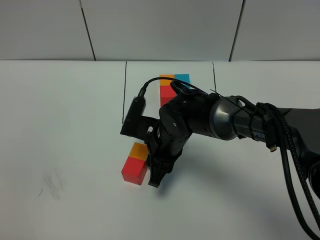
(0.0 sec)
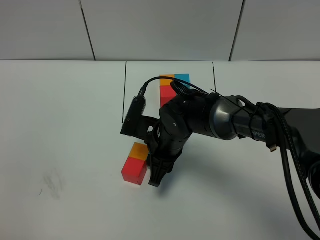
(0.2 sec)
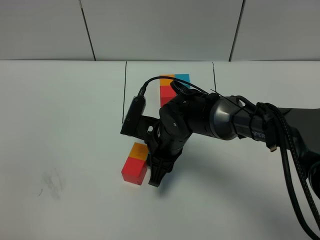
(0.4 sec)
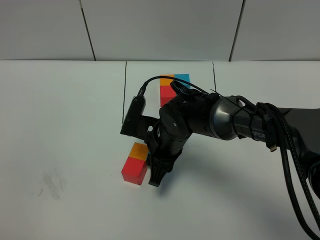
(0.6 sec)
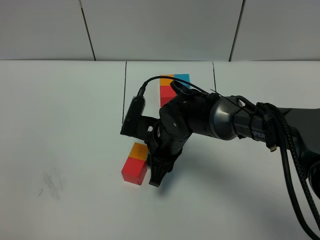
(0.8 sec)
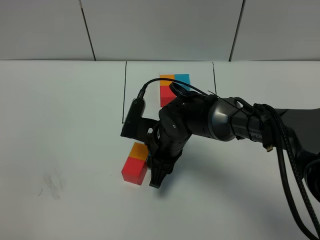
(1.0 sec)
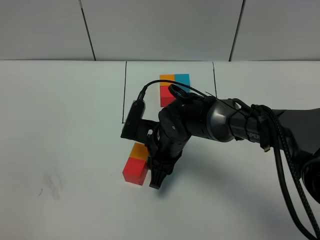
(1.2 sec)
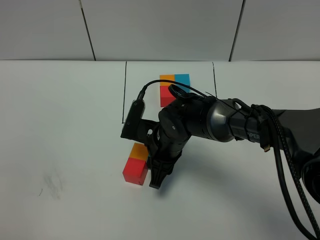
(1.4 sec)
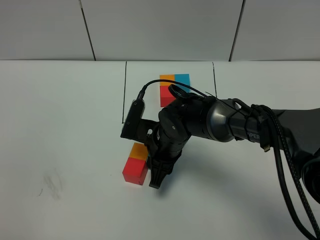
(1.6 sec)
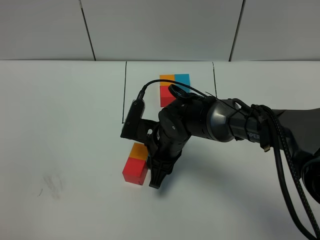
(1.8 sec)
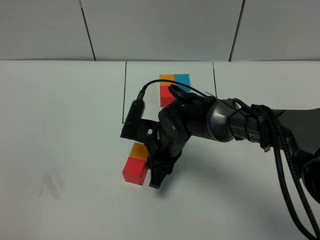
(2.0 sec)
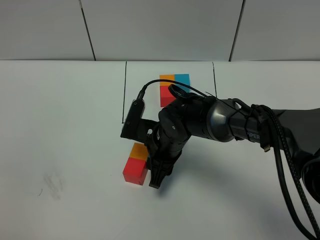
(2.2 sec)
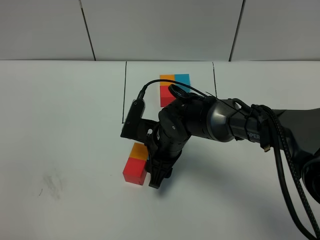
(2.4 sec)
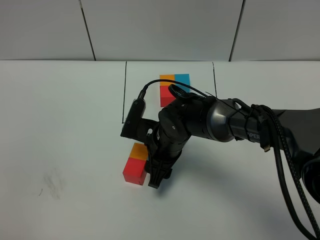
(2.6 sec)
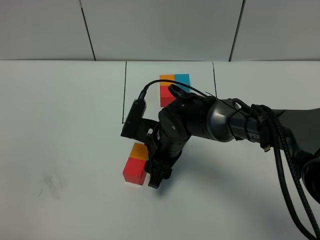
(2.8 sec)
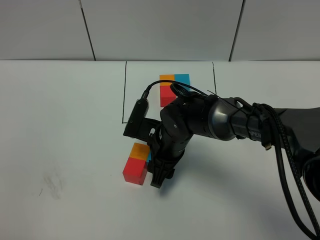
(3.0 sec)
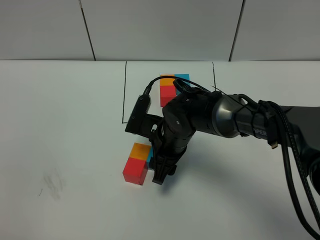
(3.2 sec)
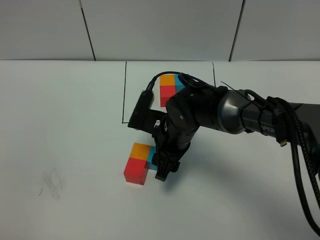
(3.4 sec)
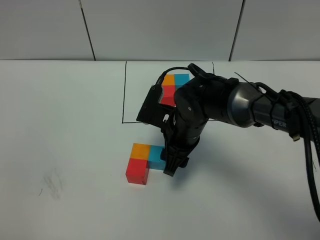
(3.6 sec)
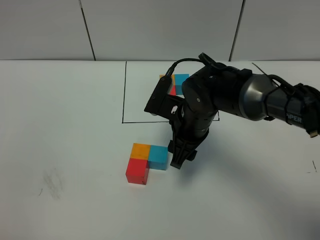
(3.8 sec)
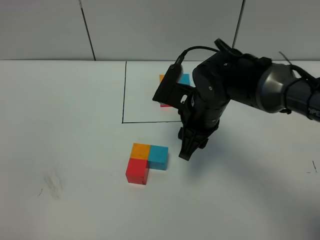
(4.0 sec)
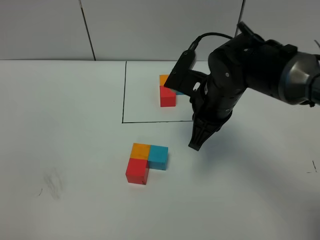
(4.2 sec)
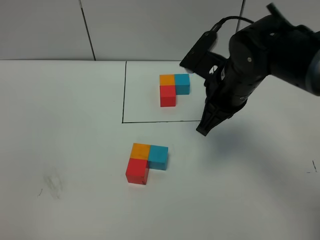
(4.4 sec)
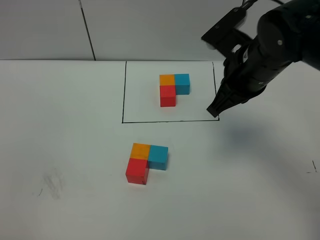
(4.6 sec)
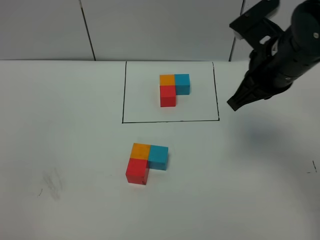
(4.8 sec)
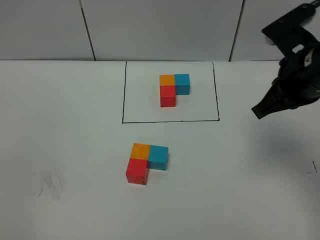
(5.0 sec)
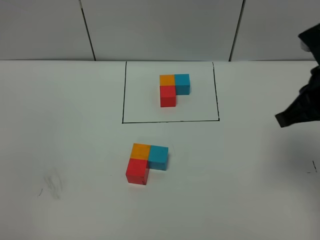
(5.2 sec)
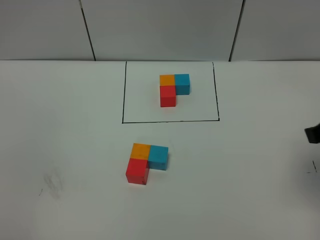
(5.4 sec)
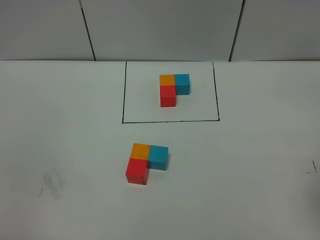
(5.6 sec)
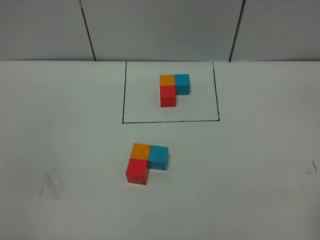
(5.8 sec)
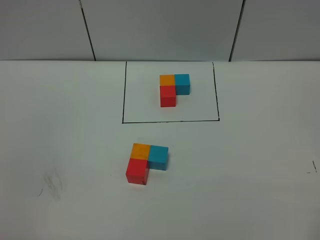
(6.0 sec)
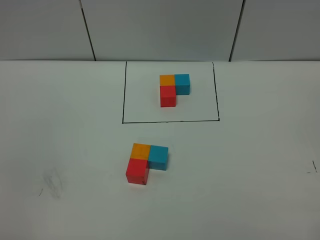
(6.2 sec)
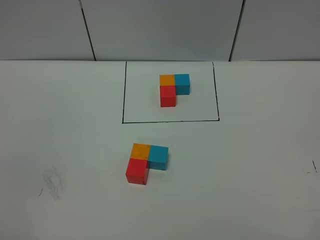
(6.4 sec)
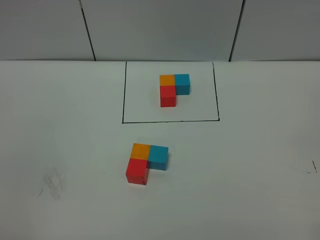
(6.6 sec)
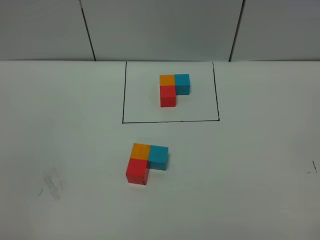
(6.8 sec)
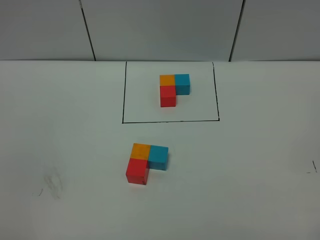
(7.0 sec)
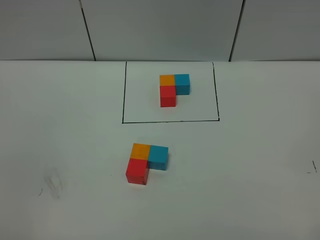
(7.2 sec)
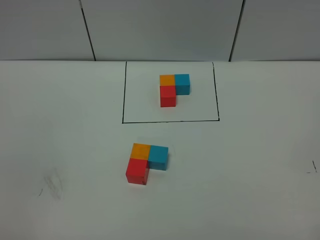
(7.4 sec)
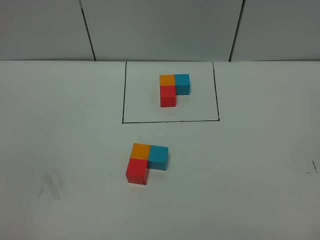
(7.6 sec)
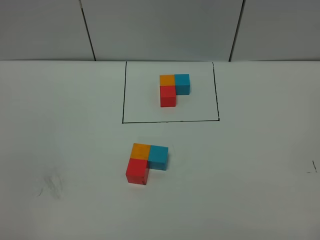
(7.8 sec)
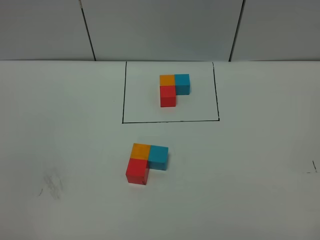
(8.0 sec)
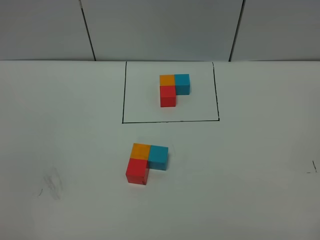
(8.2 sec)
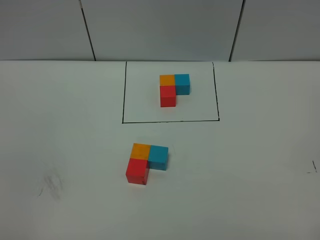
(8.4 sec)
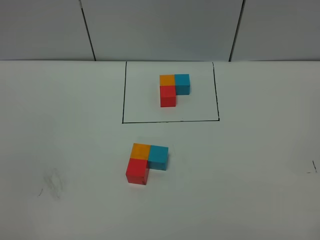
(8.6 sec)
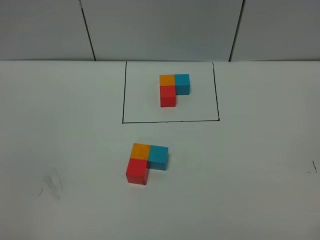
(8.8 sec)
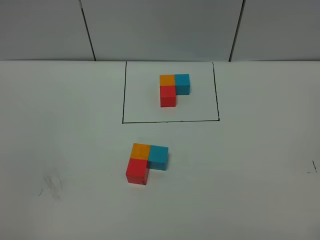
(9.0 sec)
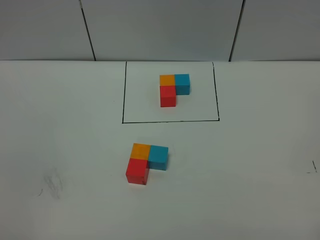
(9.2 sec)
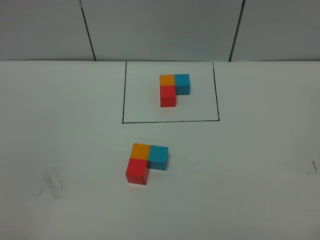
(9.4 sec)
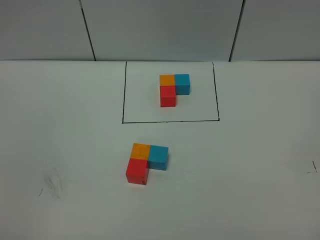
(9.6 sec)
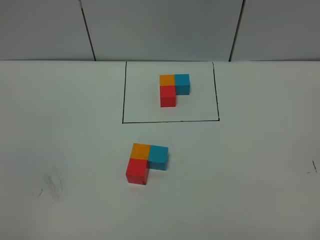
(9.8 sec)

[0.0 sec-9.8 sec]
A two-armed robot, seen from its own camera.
Task of the whole recording: According to the building block template in front, assemble the scattered blocks together.
Step, 0.0 sec to 3.2 sec: Put the blue cube on the right of the orange cube.
0.0 sec to 2.8 sec: Neither gripper changes place.
2.8 sec to 4.2 sec: The right gripper is displaced upward and to the right by about 15 cm, and closes up.
4.2 sec to 5.6 sec: The right gripper shifts roughly 30 cm to the right, backward and upward.
7.0 sec to 9.8 sec: Both grippers stay about where they are.

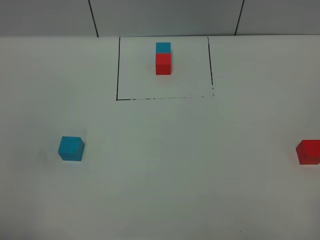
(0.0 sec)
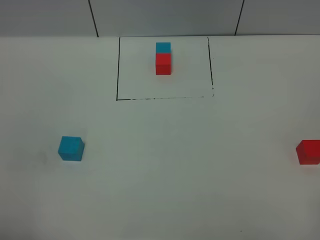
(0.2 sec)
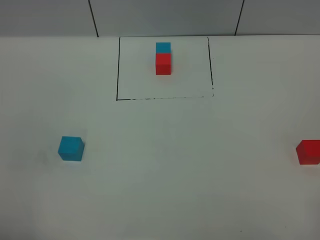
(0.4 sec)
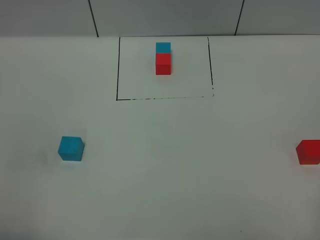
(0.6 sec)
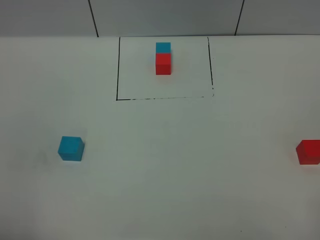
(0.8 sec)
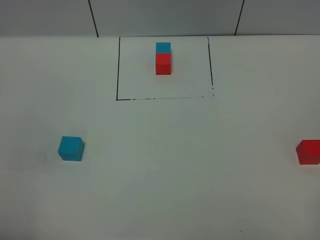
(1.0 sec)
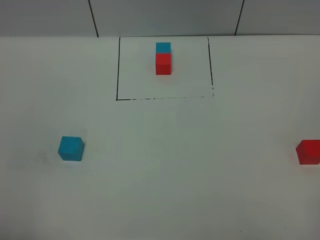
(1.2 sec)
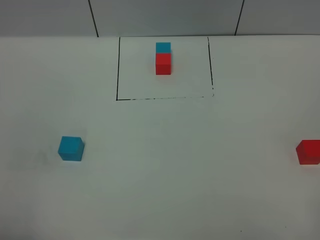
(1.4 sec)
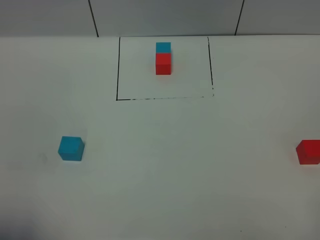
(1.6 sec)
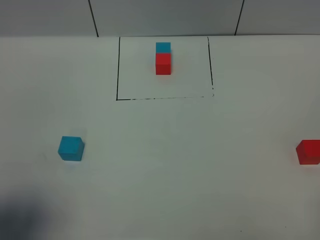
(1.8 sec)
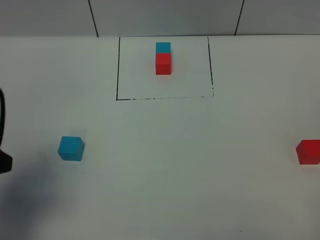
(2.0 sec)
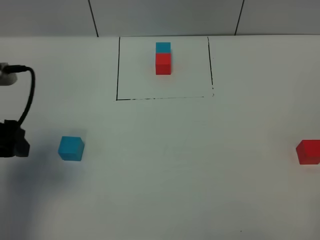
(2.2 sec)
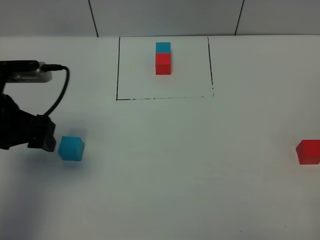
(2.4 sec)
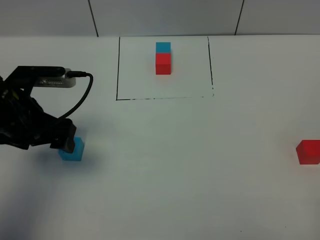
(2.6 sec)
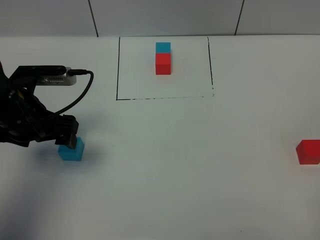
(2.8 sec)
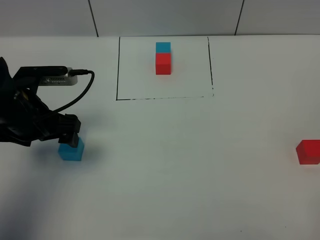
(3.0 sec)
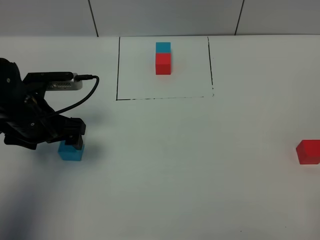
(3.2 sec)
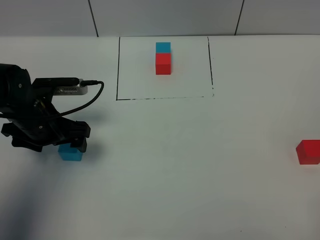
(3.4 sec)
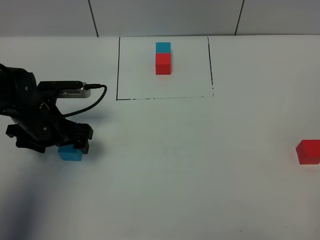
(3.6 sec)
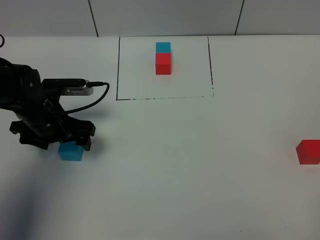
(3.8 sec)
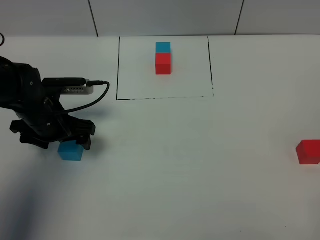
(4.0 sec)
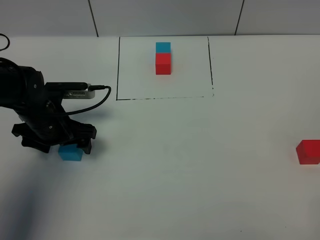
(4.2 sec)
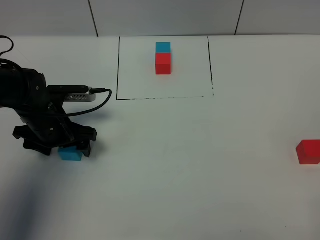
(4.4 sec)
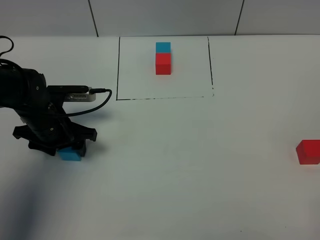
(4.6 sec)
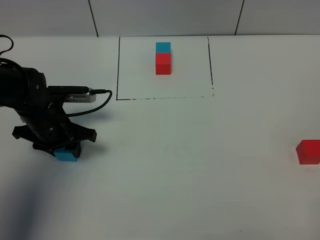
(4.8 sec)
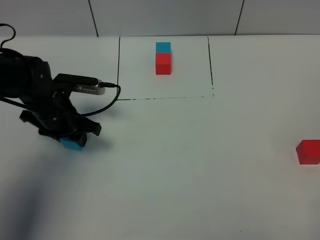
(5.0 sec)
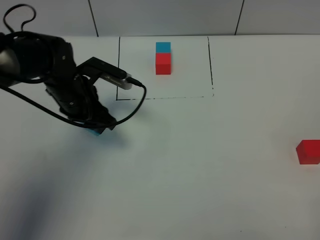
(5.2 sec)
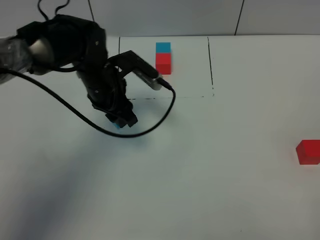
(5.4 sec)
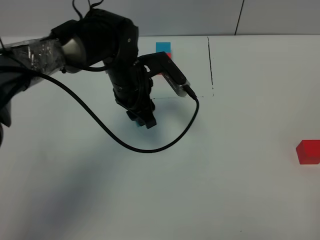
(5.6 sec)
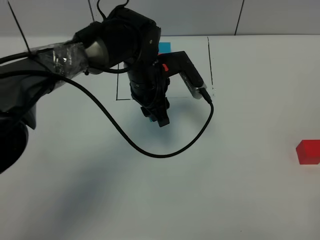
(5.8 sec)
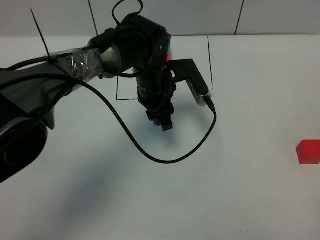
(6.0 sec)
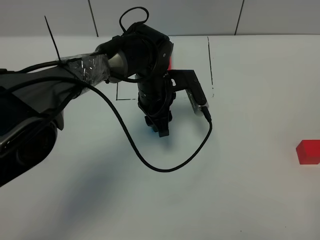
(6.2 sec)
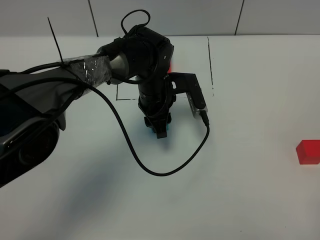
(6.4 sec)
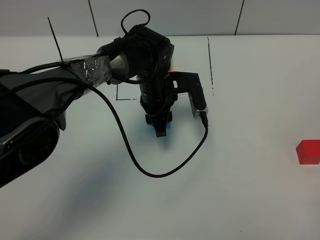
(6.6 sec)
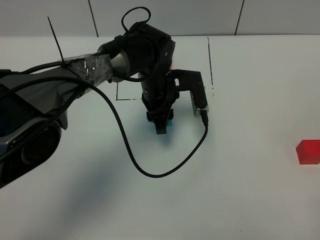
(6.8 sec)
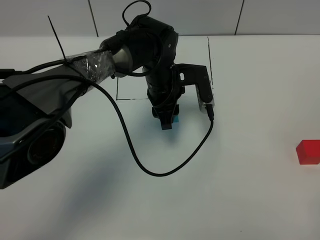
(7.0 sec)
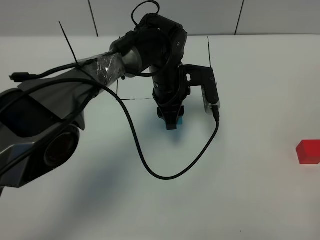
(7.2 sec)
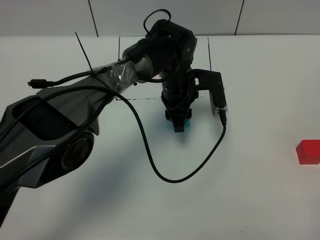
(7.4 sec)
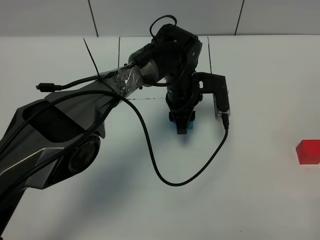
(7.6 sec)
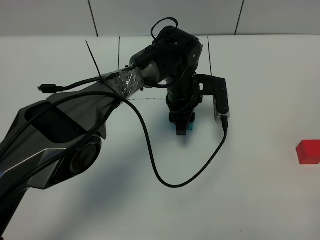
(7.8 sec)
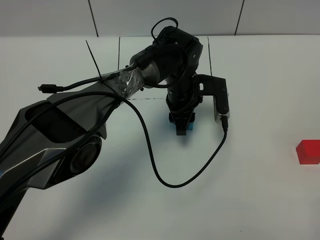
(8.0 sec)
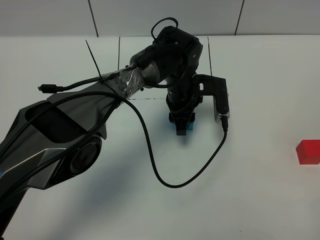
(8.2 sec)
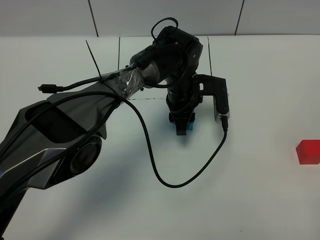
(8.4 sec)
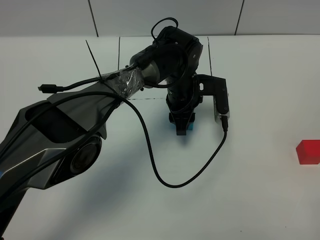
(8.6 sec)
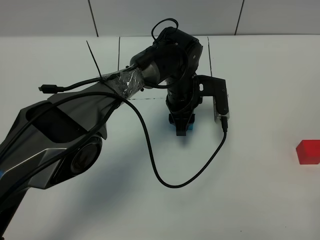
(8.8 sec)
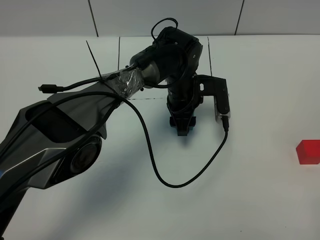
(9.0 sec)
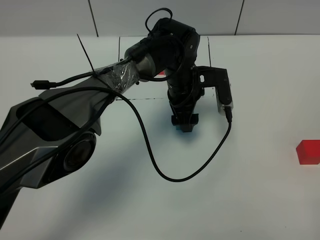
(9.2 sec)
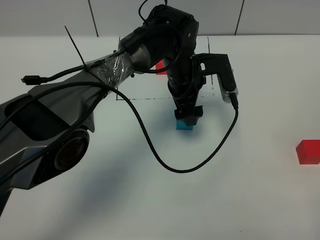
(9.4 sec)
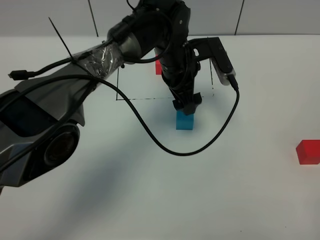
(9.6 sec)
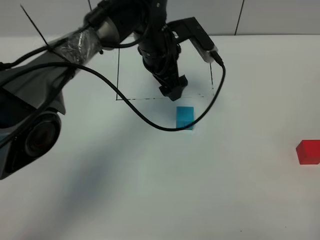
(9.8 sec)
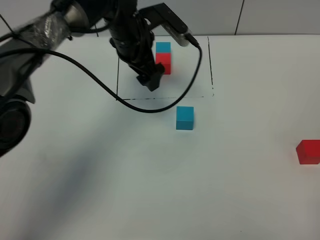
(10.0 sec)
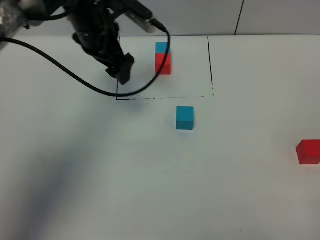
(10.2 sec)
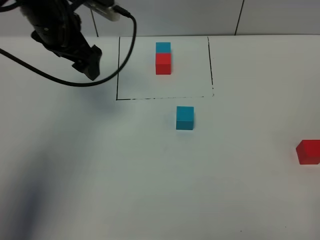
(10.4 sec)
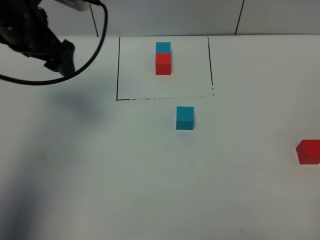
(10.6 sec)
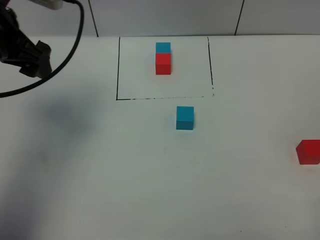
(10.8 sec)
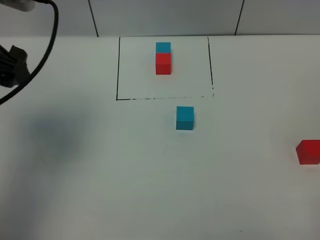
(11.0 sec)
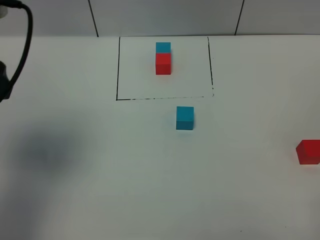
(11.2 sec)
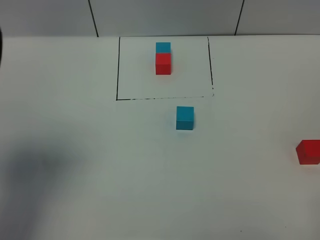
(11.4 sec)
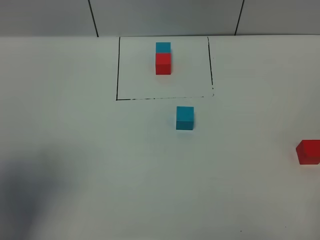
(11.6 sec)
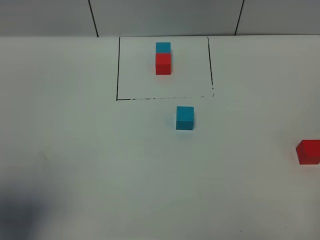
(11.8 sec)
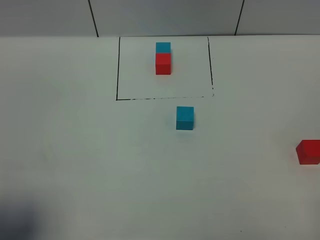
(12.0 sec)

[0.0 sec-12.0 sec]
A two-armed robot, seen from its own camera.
Task of the whole recording: According to the building block template in front, assemble the scattered blocks together.
Step, 2.0 sec to 9.2 sec: Put the blue cube in the center of the table.
1.6 sec to 3.0 sec: The left gripper goes some 25 cm forward.
3.0 sec to 4.4 sec: The left gripper shifts roughly 10 cm downward.
4.4 sec to 6.0 sec: The left gripper heads to the right, covering about 20 cm, and closes its fingers.
6.0 sec to 7.6 sec: The left gripper travels to the right by approximately 5 cm.
7.6 sec to 9.0 sec: The left gripper opens its fingers.
9.0 sec to 10.4 sec: The left gripper heads to the left and upward, covering some 30 cm, and opens its fingers.
10.4 sec to 12.0 sec: The left gripper heads backward, covering some 35 cm.
